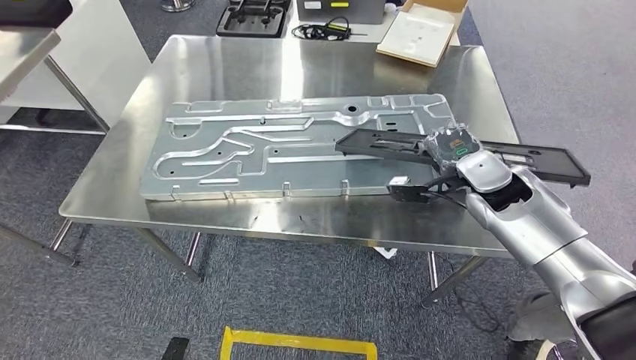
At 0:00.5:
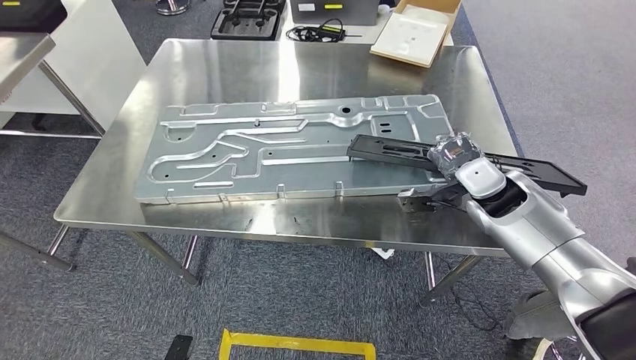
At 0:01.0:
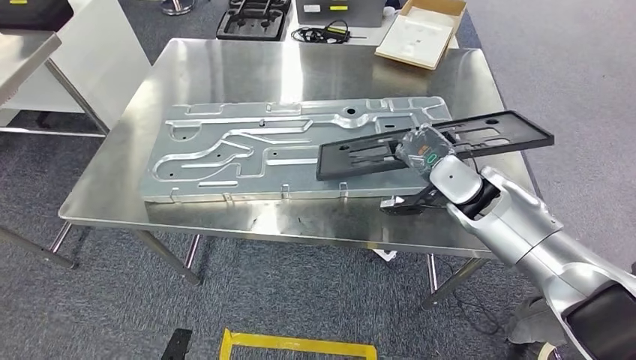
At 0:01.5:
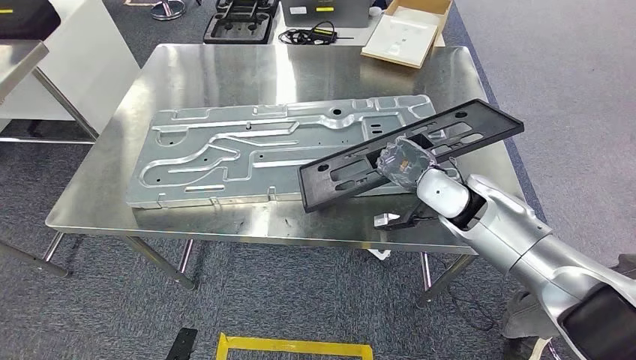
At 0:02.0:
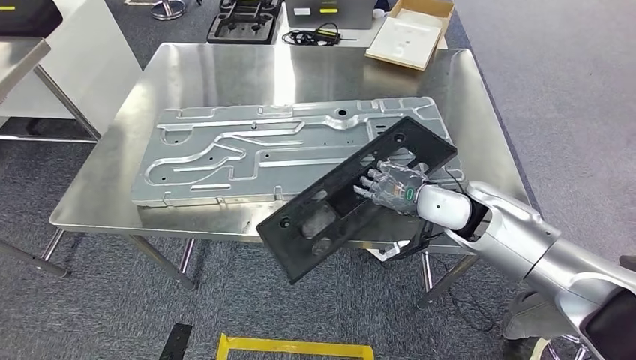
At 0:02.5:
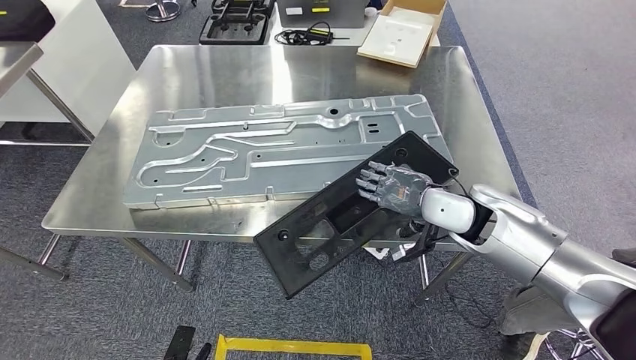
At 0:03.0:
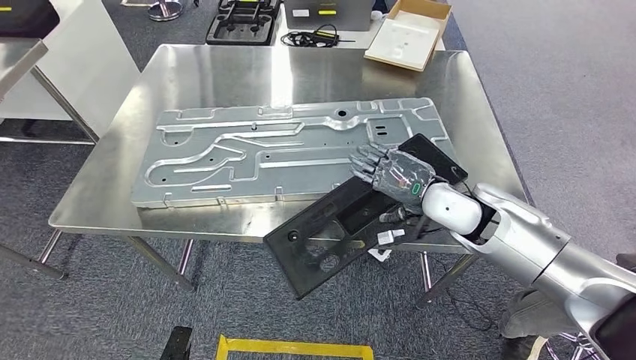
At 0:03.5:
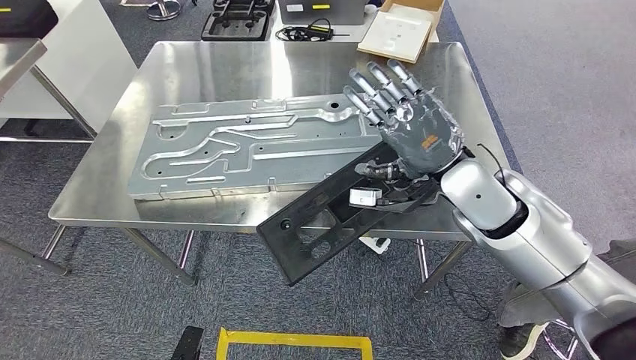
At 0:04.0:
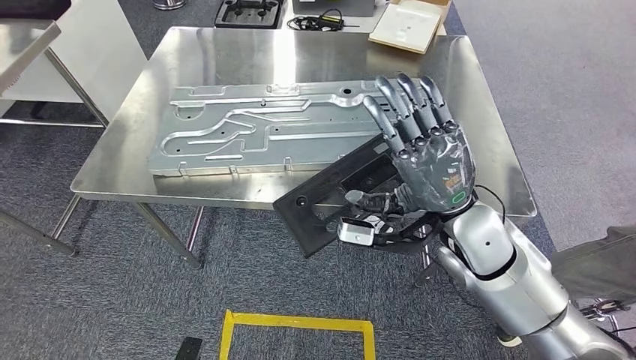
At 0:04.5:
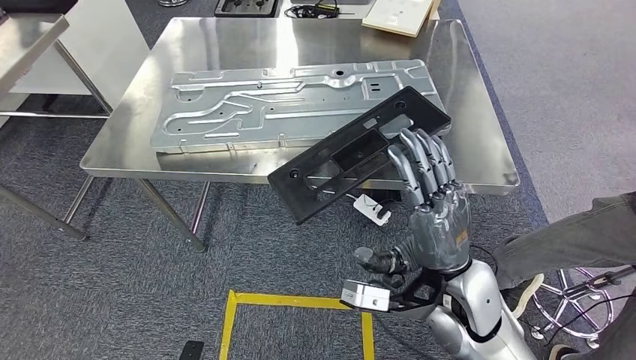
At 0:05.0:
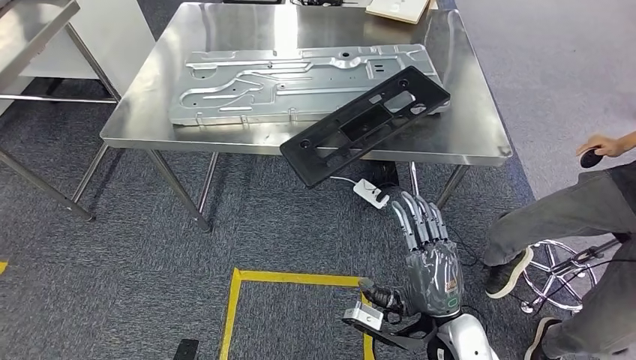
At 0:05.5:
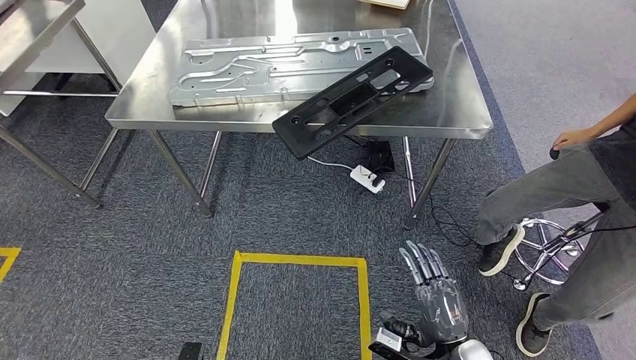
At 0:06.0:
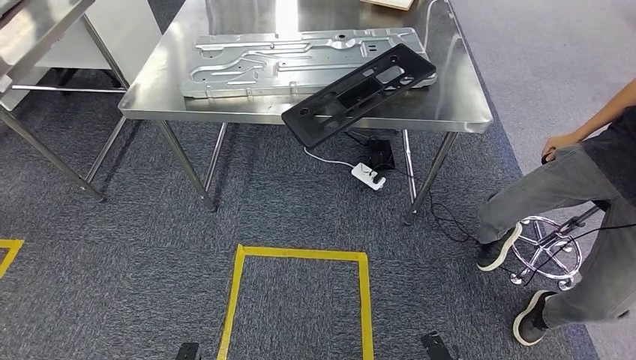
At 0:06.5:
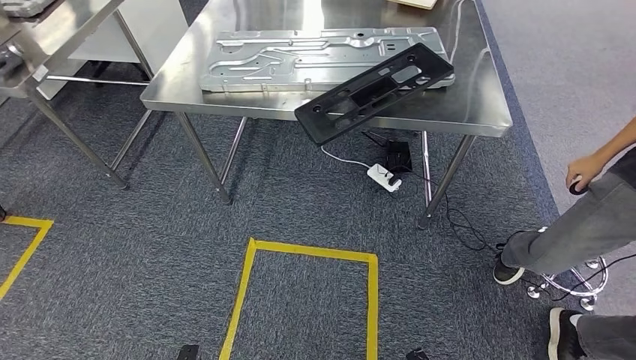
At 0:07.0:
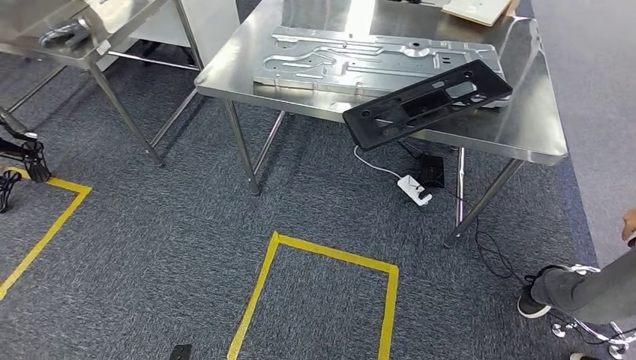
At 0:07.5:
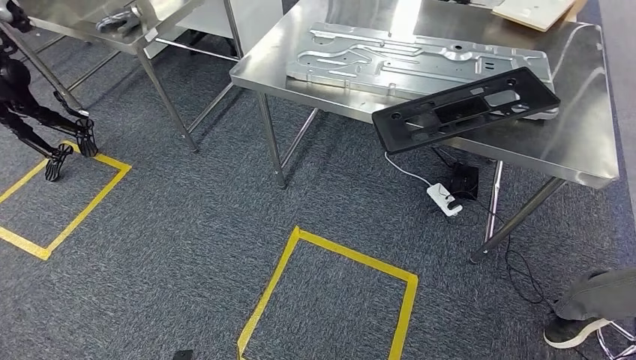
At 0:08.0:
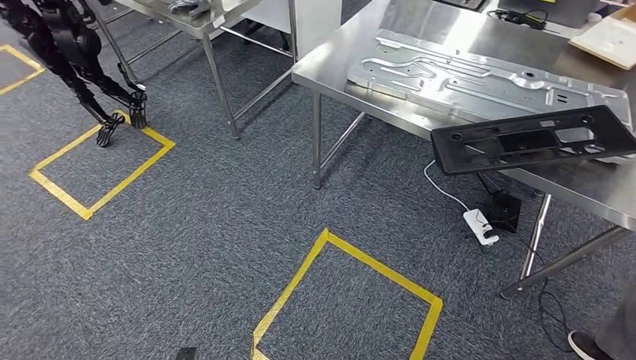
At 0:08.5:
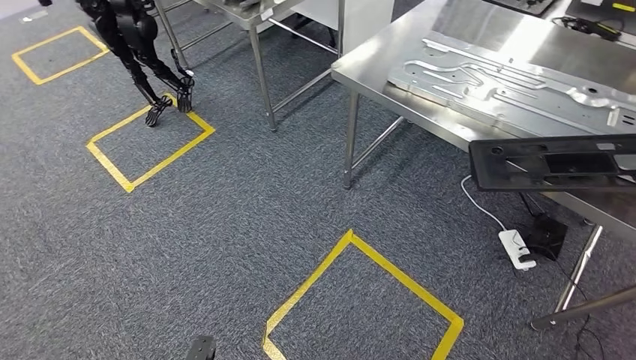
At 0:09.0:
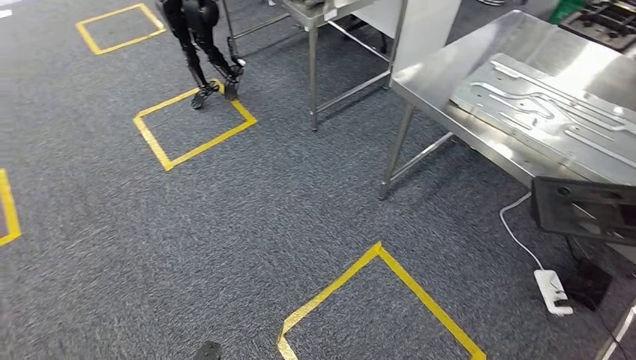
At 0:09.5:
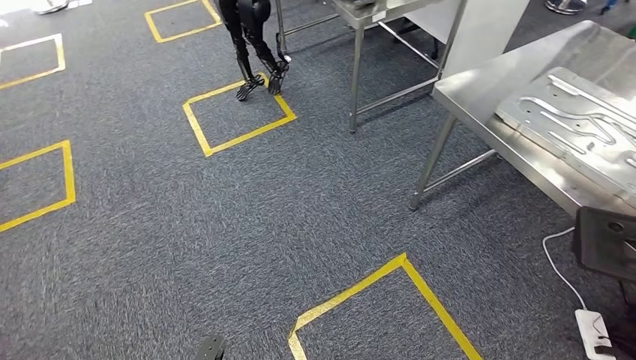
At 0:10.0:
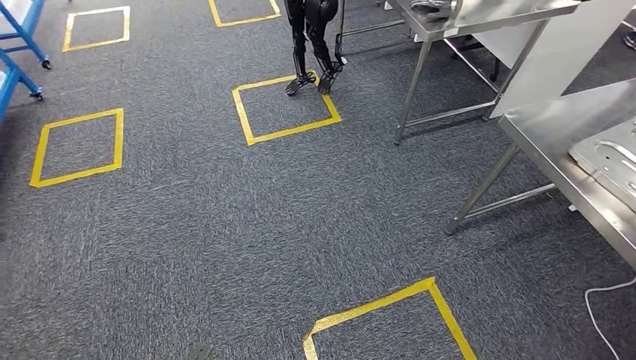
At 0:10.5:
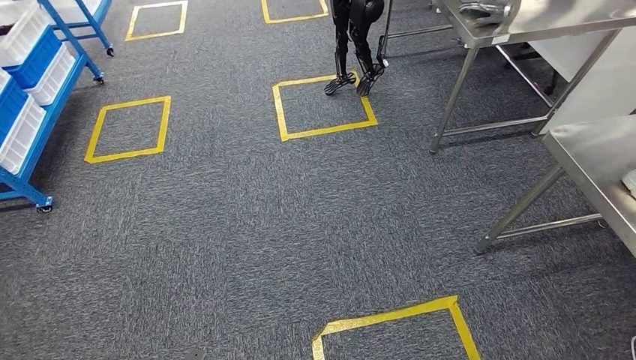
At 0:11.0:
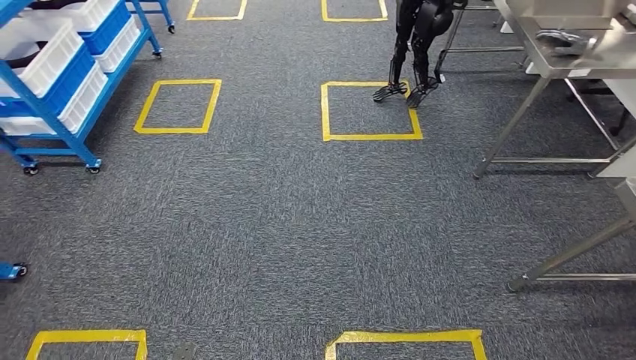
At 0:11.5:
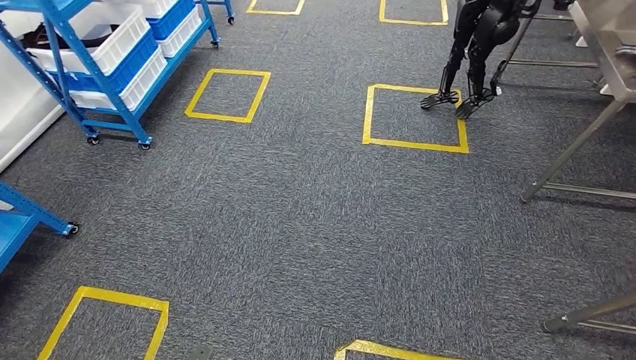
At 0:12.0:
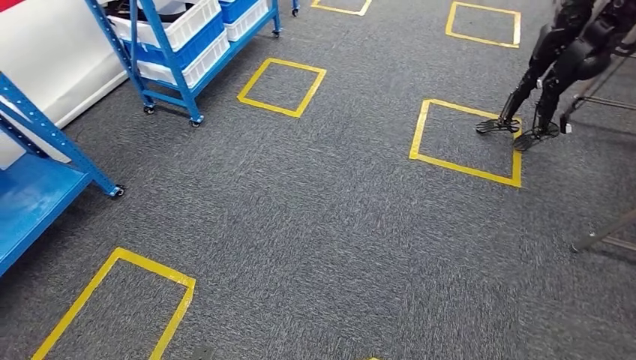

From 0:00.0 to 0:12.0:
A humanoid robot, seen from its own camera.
Step, from 0:00.0 to 0:03.5: Insert the large material into the corresponding slot on the workbench.

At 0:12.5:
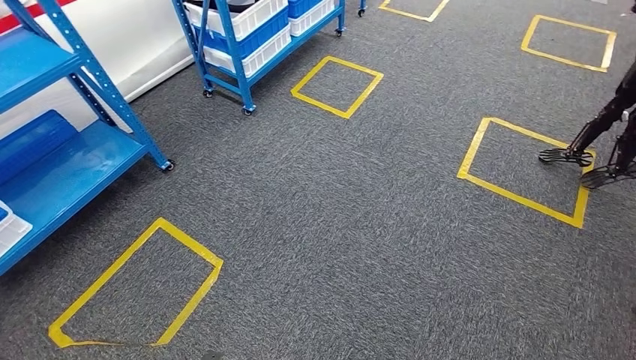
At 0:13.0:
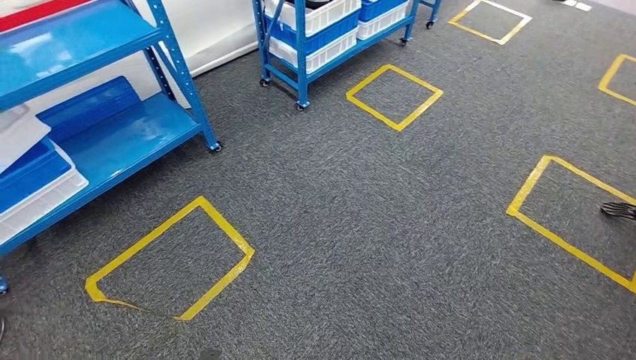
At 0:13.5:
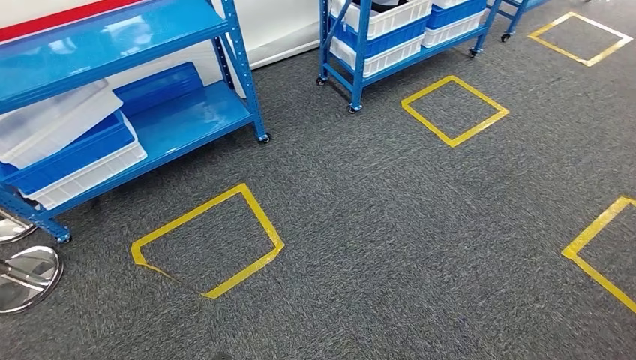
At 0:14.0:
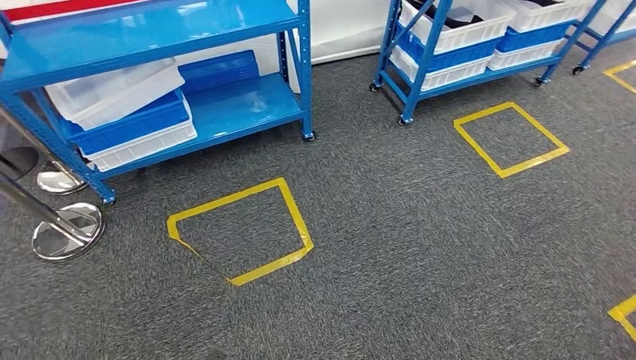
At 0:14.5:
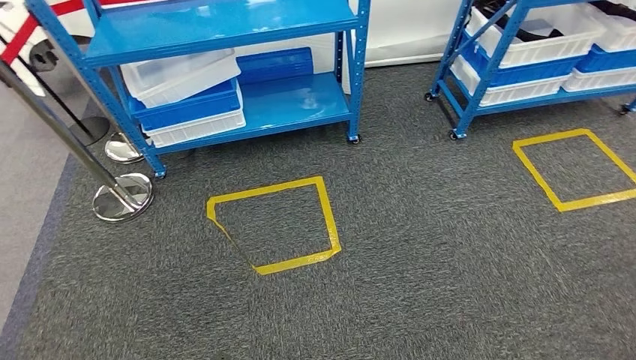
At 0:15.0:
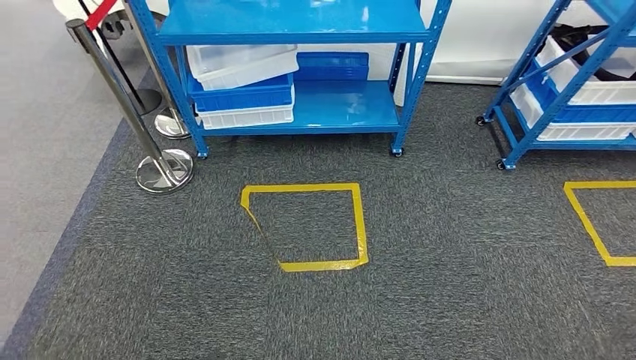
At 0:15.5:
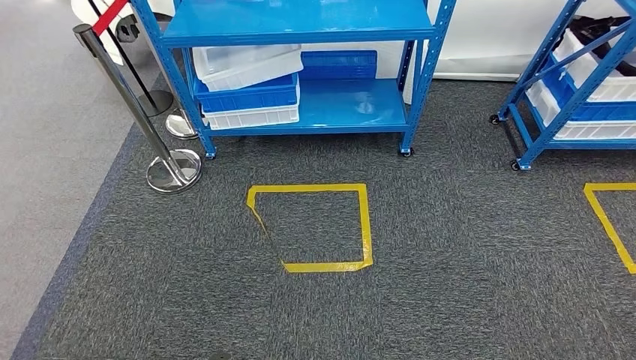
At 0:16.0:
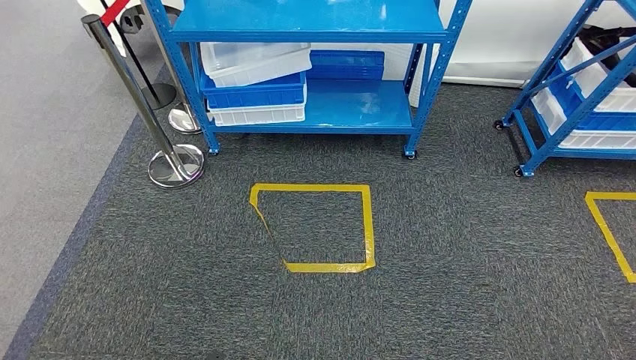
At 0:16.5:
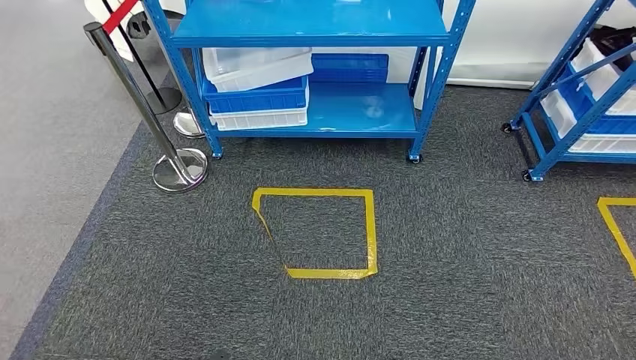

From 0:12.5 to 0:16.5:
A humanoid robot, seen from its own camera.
Step, from 0:12.5 to 0:16.0: Move to the initial position of the shelf.
